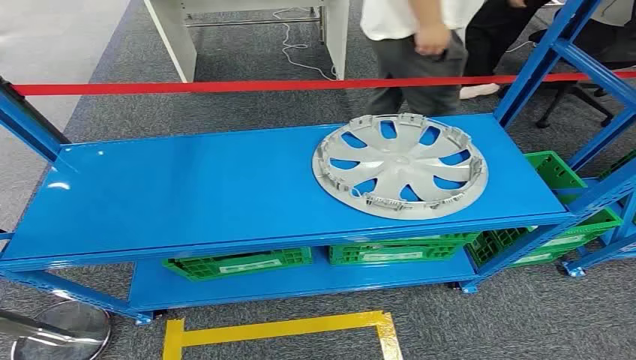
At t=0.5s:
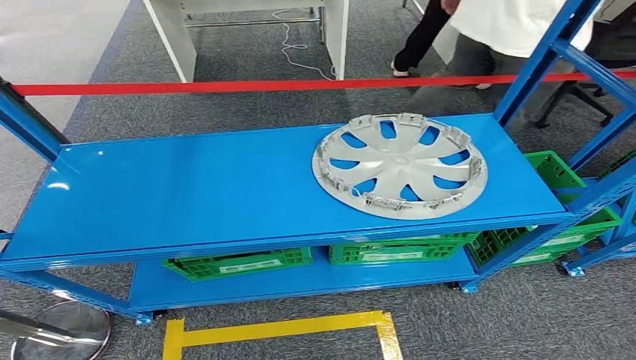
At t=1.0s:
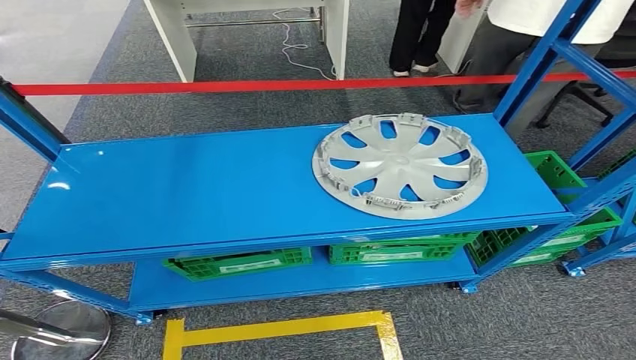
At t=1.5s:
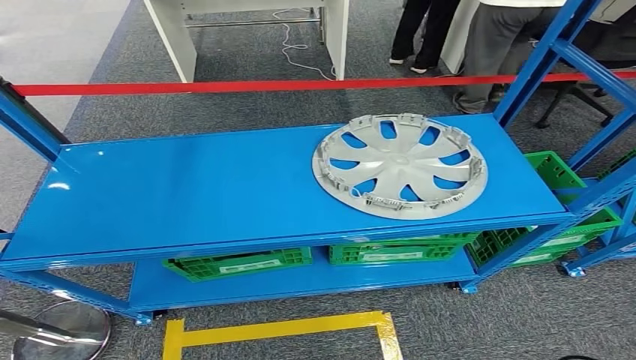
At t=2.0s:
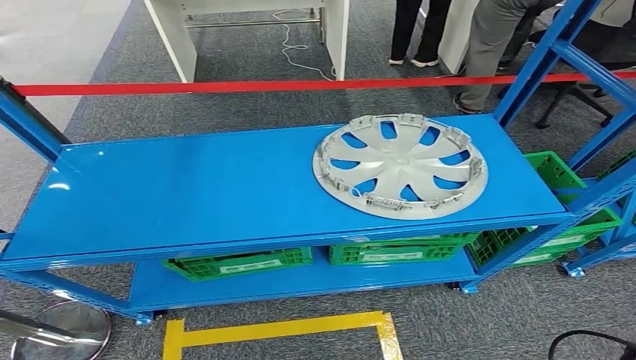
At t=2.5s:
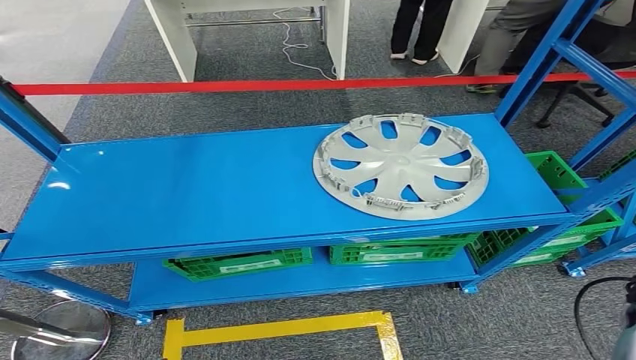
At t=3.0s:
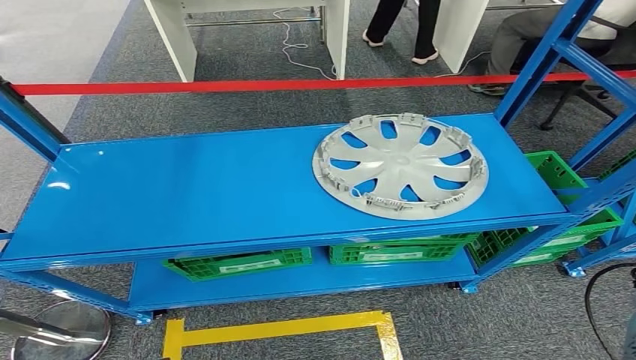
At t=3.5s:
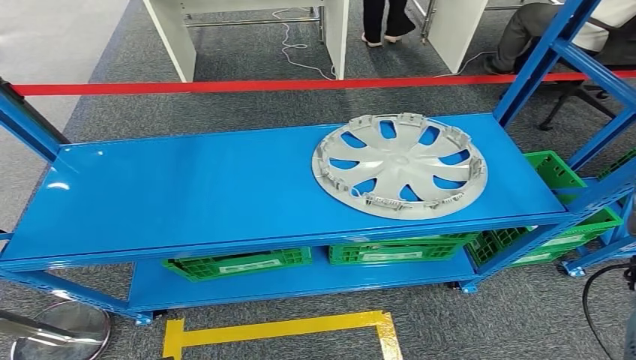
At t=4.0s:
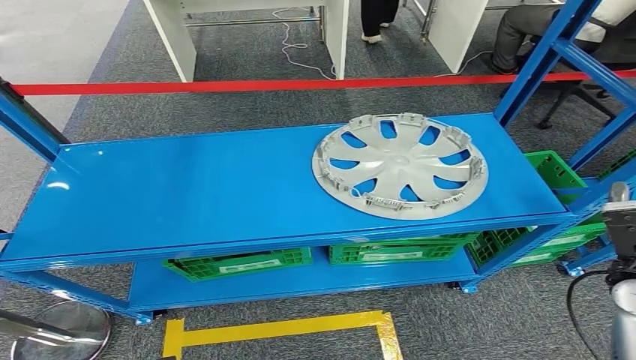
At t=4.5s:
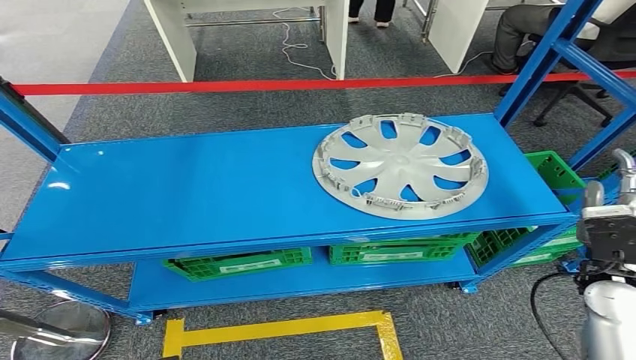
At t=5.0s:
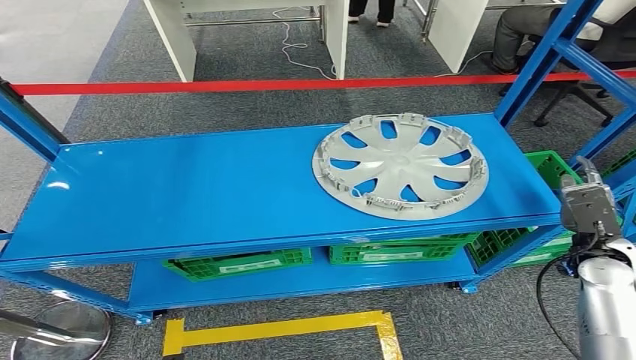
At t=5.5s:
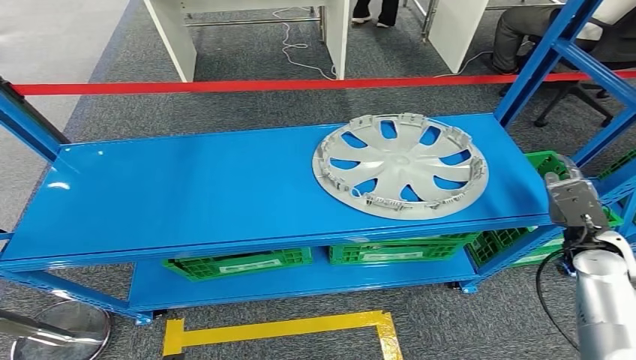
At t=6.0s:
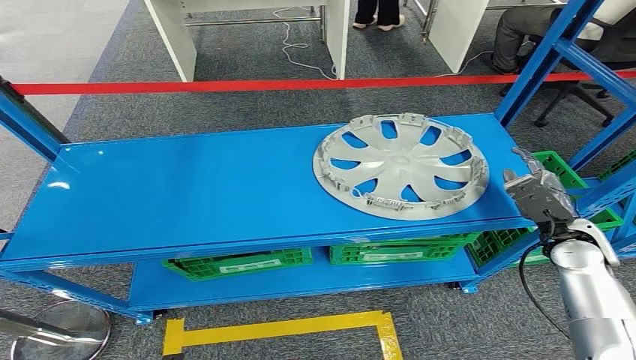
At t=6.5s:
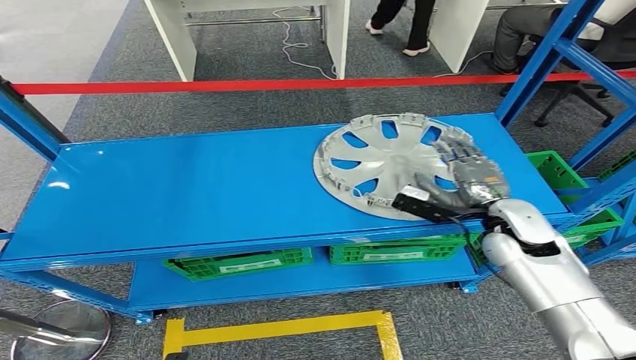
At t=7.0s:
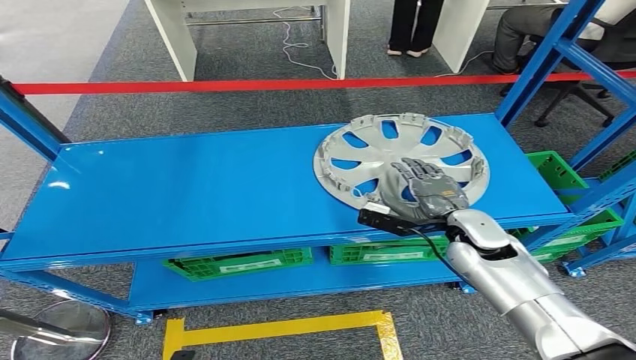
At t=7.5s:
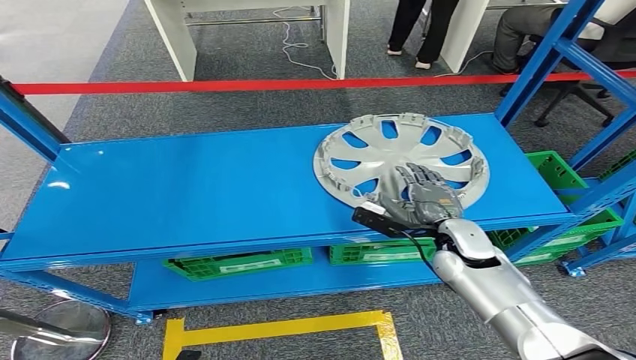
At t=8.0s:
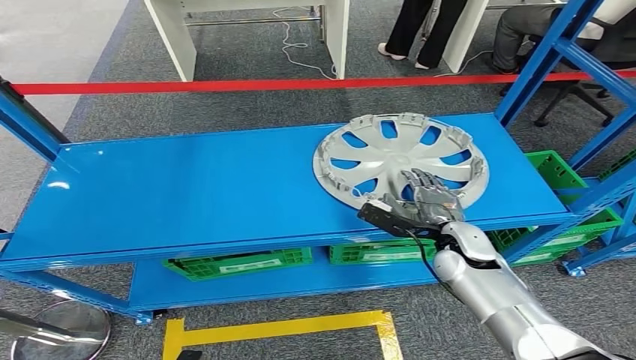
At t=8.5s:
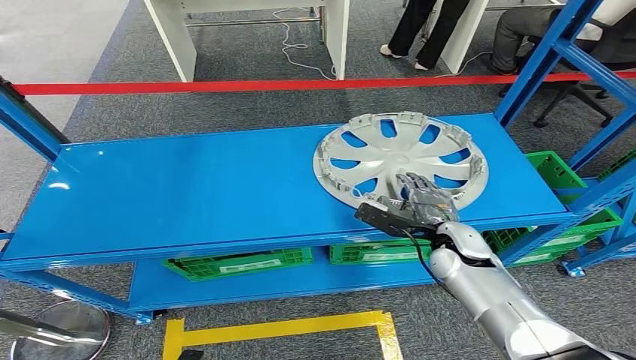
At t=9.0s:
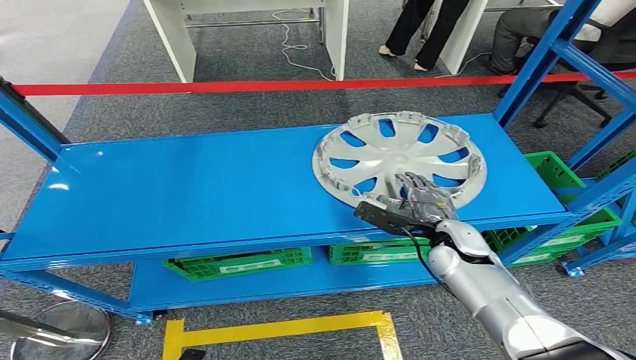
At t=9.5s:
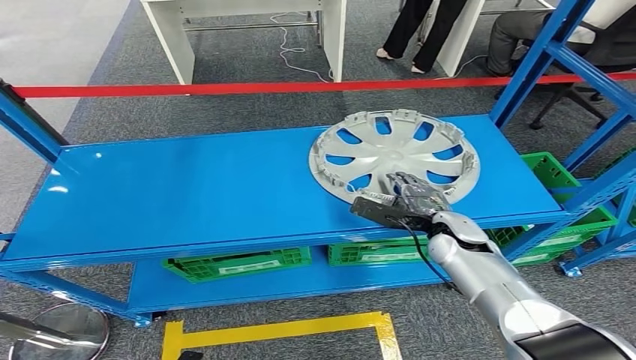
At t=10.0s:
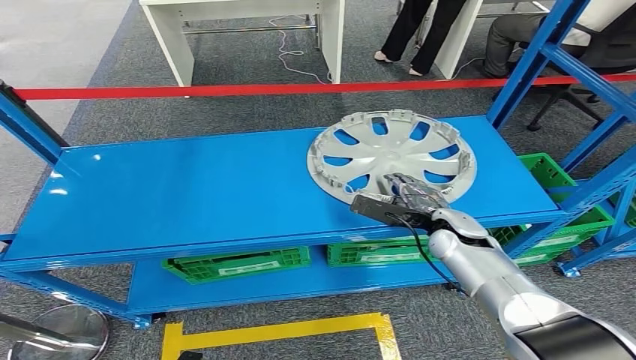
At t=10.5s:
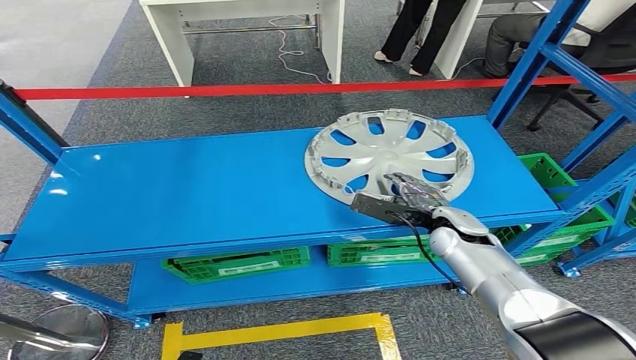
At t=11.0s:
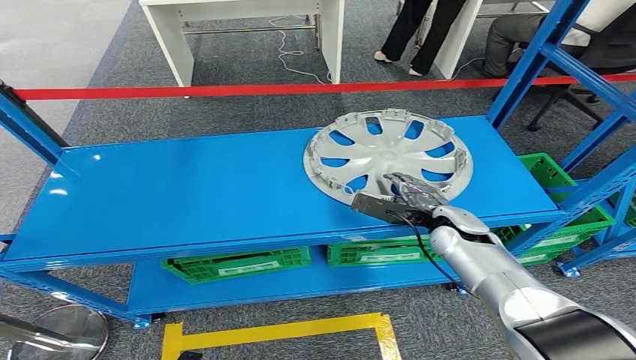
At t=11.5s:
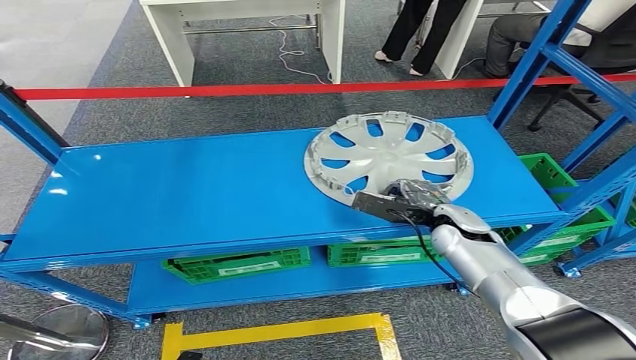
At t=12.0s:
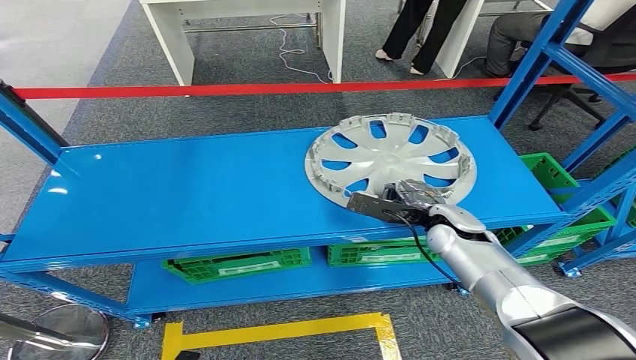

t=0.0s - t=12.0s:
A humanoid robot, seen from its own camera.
t=2.0s - t=4.0s: The right hand goes approximately 10 cm forward and to the right.
t=4.0s - t=6.0s: The right hand travels forward by about 5 cm.
t=6.0s - t=8.0s: The right hand is displaced to the left by approximately 15 cm.
t=10.0s - t=12.0s: Neither hand changes place.

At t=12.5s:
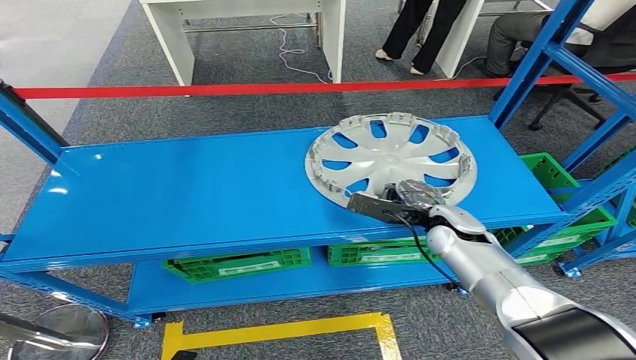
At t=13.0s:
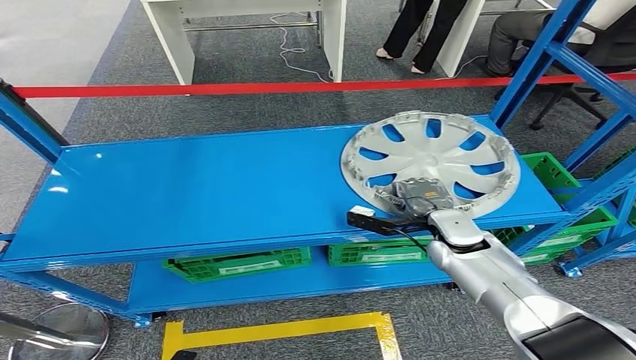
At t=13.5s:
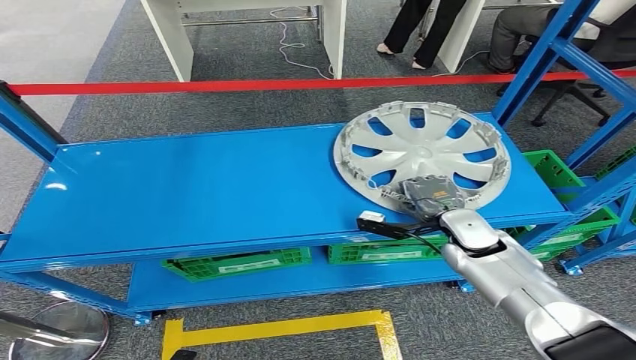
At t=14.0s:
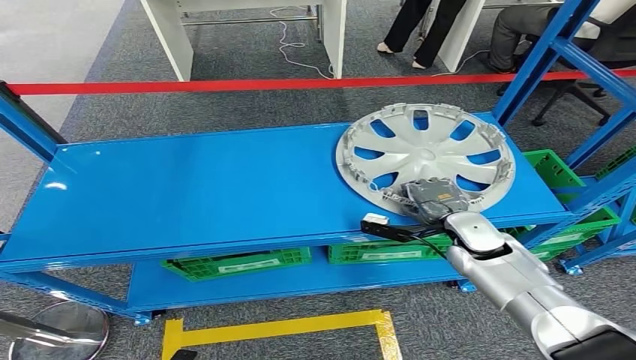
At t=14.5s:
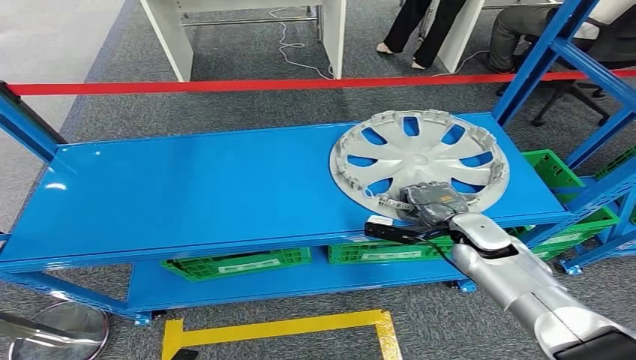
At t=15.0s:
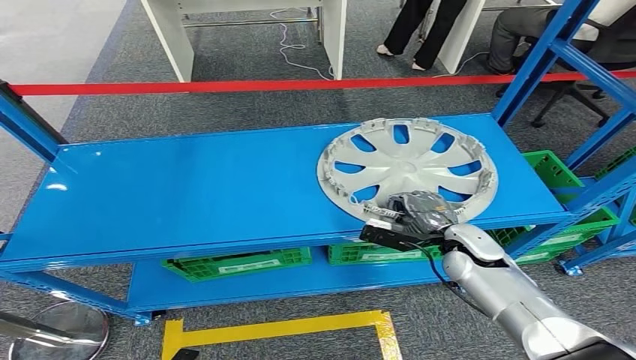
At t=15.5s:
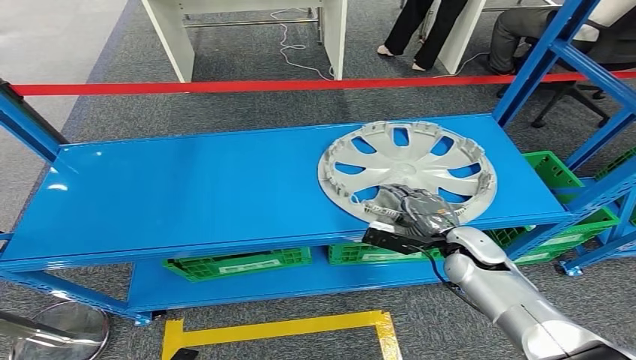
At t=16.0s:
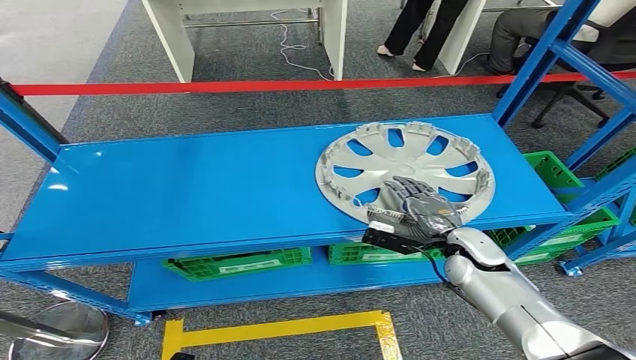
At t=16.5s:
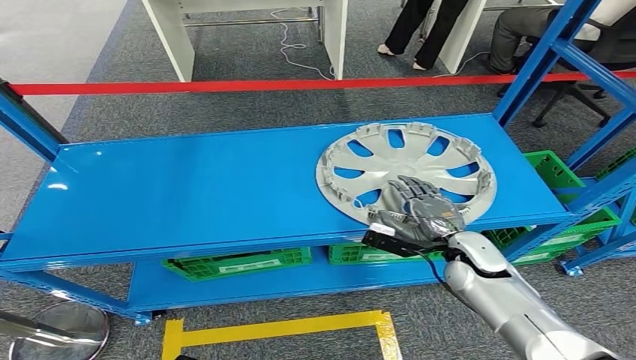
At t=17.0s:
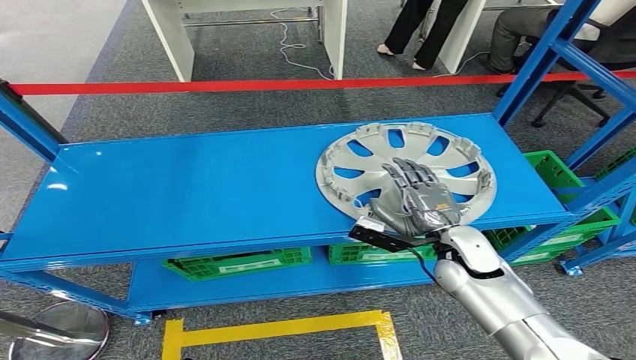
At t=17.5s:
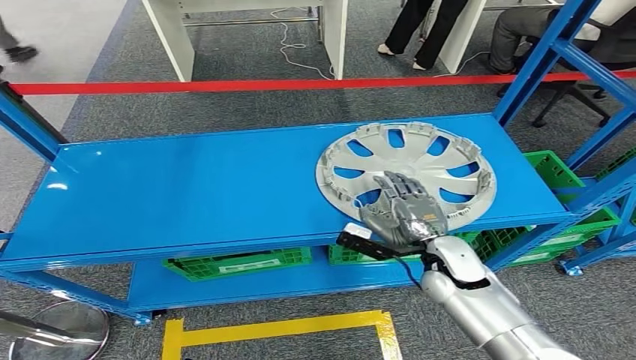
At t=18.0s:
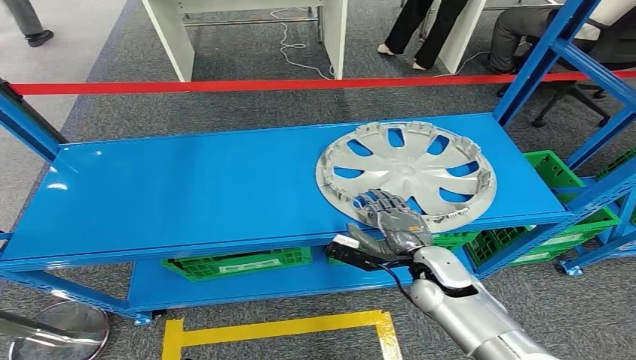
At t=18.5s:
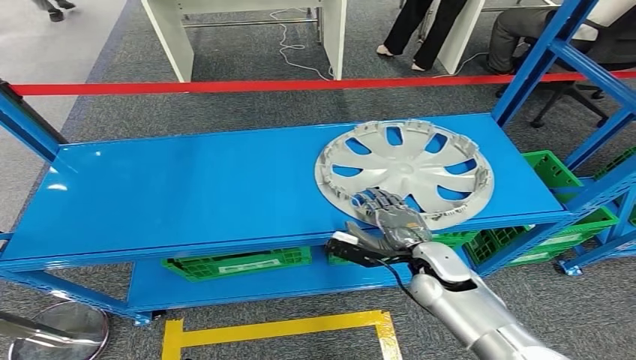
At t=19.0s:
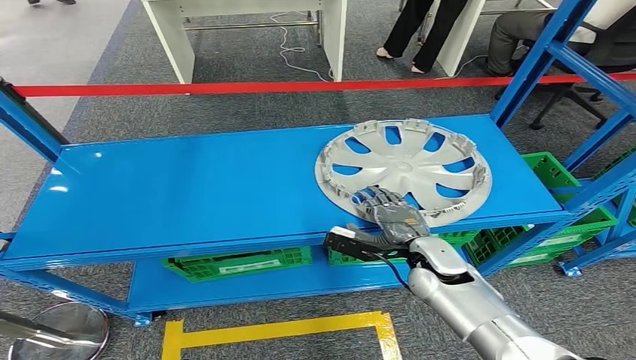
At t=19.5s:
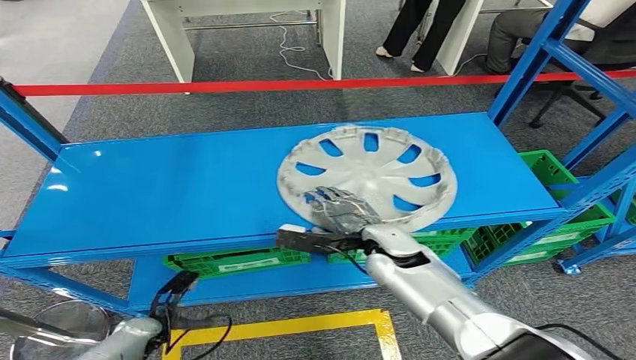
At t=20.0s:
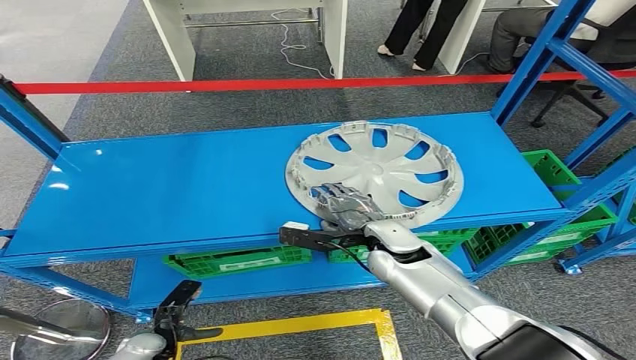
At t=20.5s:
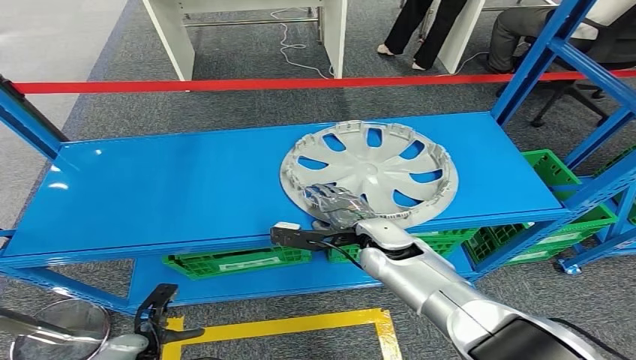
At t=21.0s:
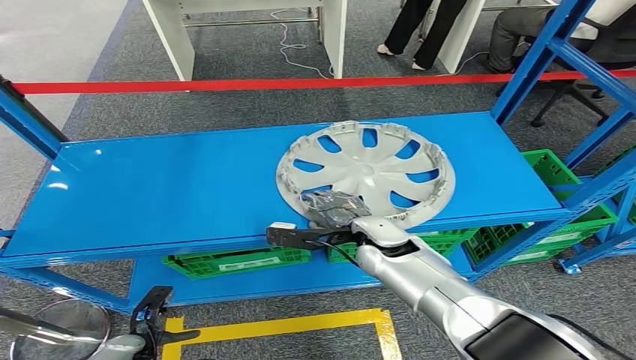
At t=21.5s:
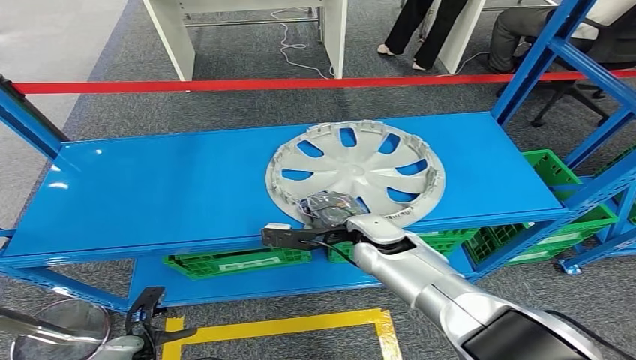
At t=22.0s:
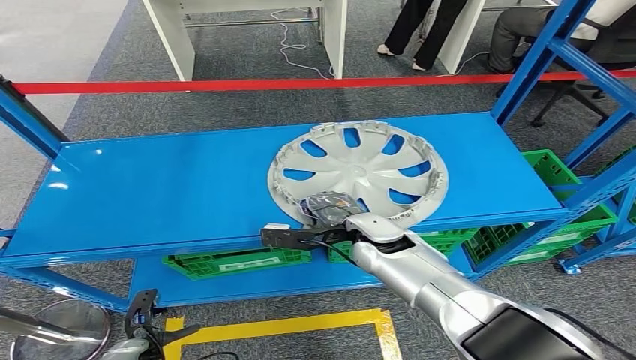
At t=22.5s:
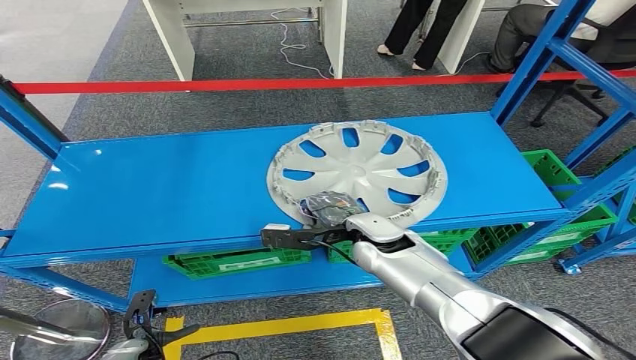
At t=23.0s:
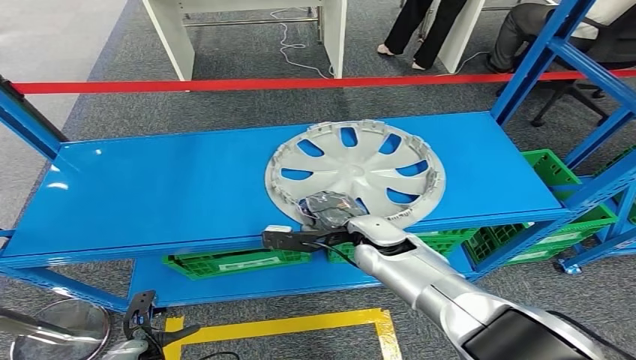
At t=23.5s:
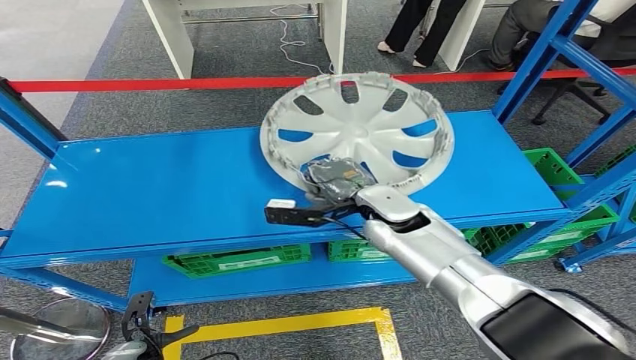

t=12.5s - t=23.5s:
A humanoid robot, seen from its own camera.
Step, t=12.5s - t=14.5s: Pick up the small parts from the shelf.
t=14.5s - t=16.0s: There are only small adjustments of the hands.
t=16.0s - t=18.0s: The right hand shifts approximately 10 cm to the left.
t=20.0s - t=21.5s: The hands make only small movements.
